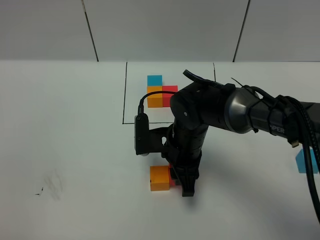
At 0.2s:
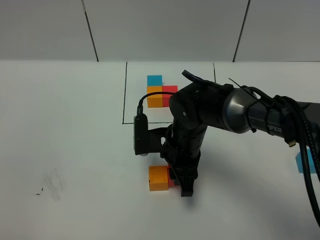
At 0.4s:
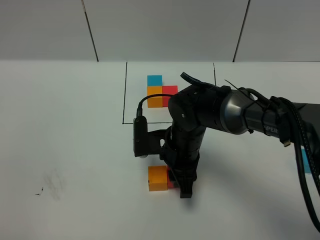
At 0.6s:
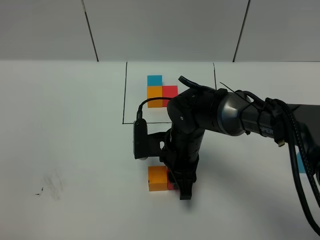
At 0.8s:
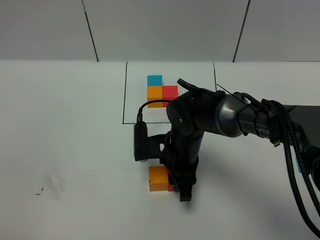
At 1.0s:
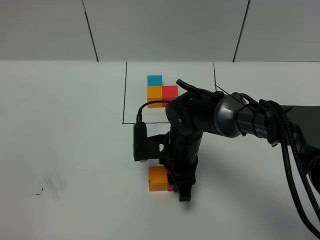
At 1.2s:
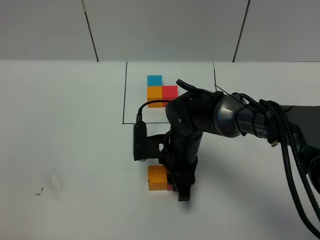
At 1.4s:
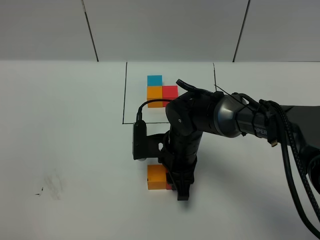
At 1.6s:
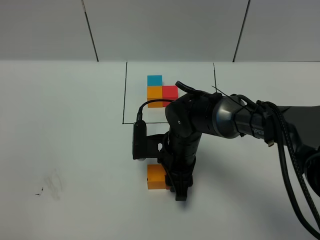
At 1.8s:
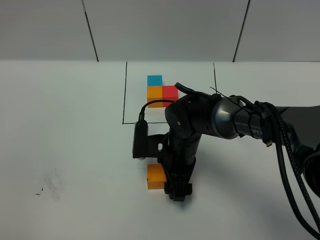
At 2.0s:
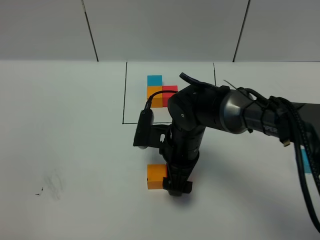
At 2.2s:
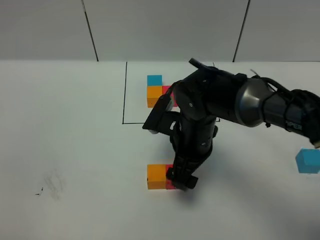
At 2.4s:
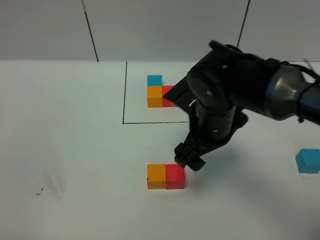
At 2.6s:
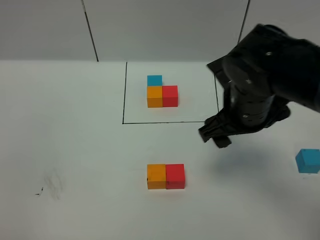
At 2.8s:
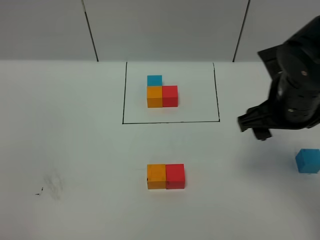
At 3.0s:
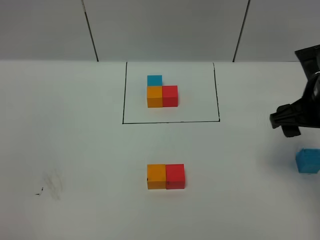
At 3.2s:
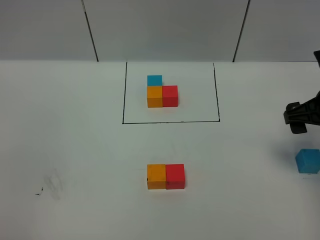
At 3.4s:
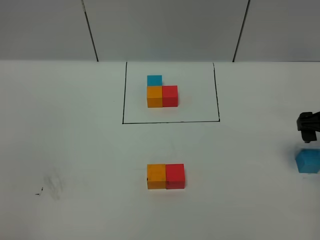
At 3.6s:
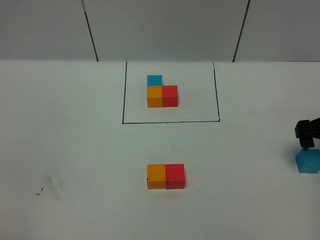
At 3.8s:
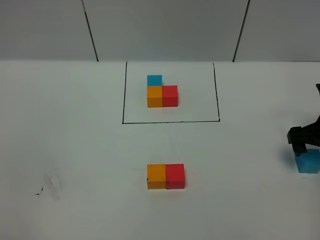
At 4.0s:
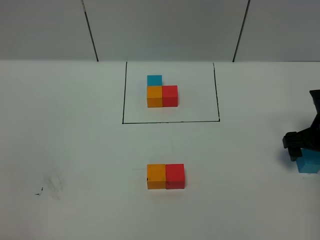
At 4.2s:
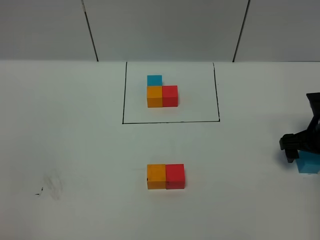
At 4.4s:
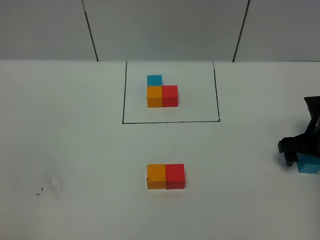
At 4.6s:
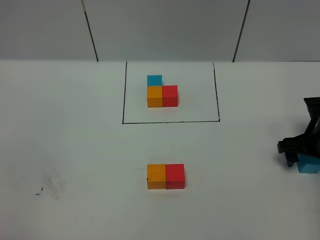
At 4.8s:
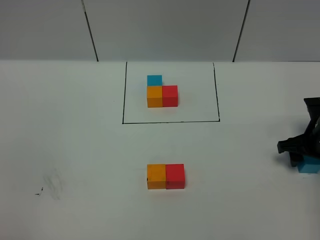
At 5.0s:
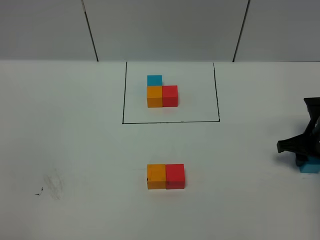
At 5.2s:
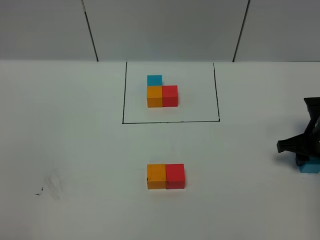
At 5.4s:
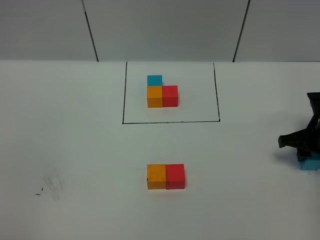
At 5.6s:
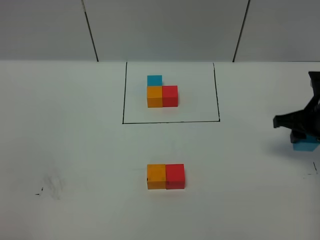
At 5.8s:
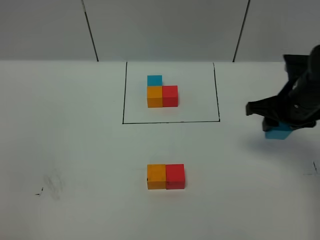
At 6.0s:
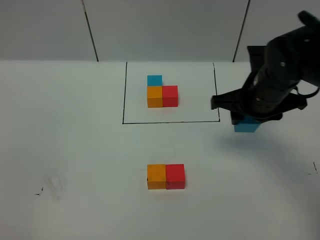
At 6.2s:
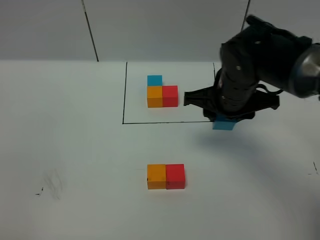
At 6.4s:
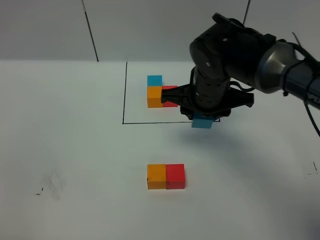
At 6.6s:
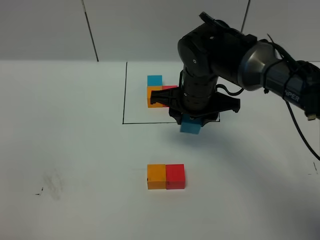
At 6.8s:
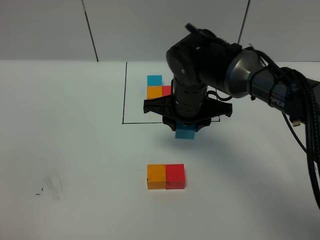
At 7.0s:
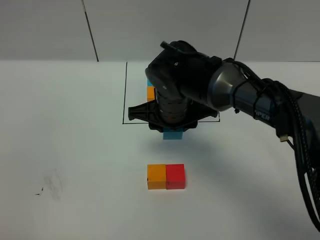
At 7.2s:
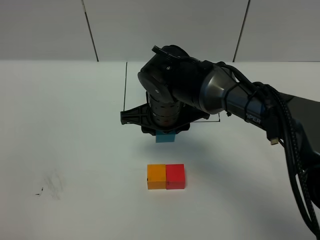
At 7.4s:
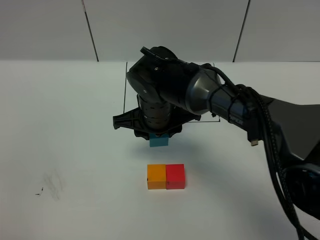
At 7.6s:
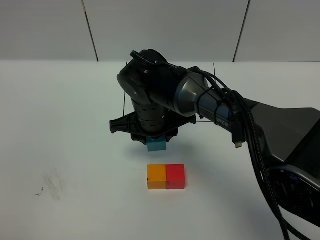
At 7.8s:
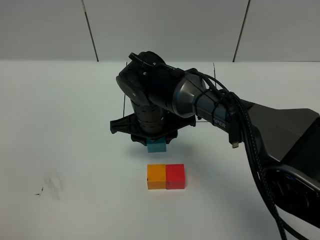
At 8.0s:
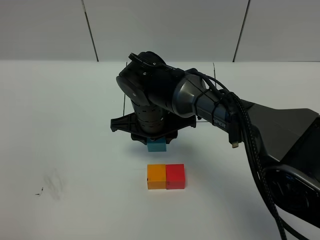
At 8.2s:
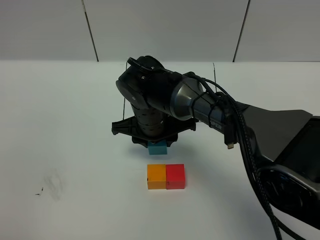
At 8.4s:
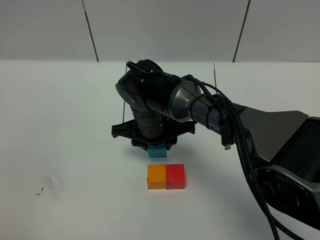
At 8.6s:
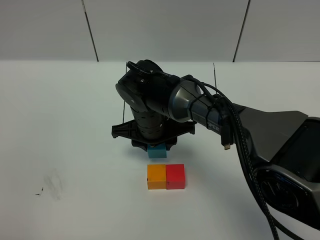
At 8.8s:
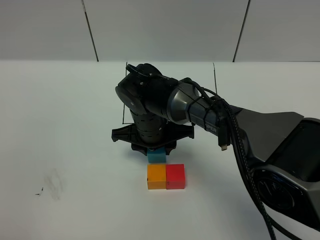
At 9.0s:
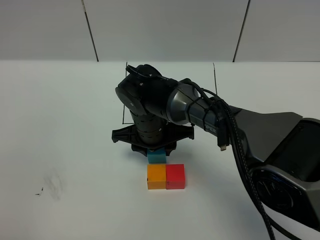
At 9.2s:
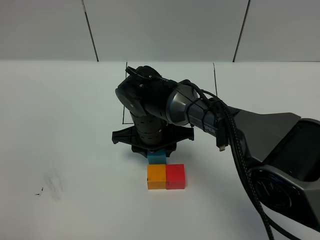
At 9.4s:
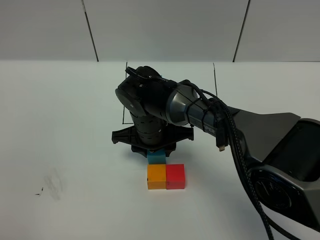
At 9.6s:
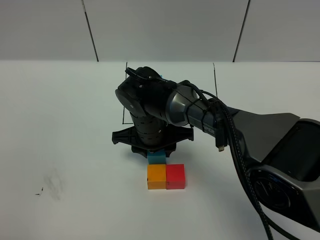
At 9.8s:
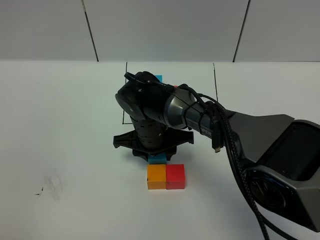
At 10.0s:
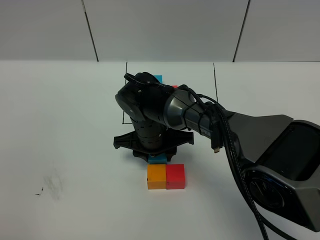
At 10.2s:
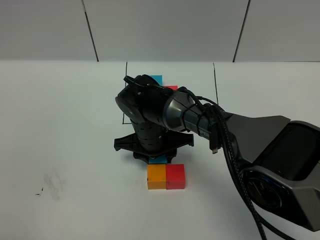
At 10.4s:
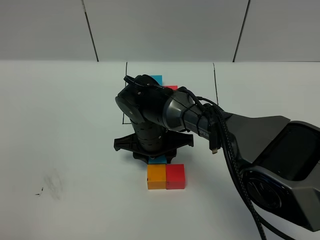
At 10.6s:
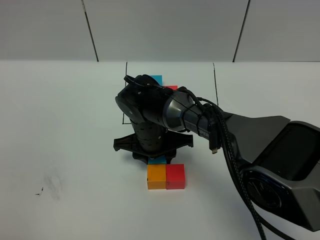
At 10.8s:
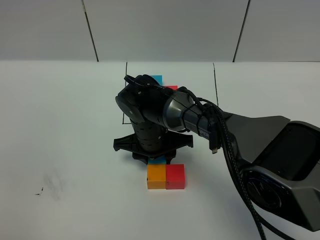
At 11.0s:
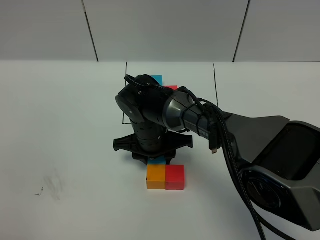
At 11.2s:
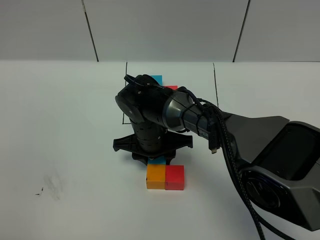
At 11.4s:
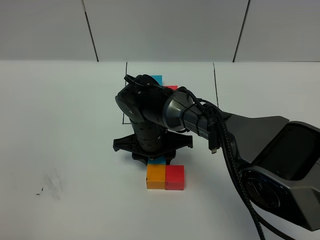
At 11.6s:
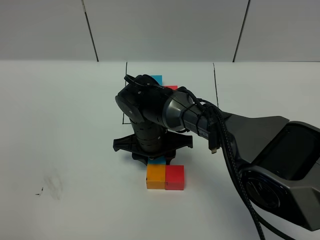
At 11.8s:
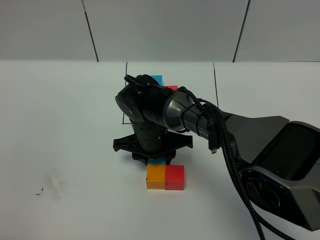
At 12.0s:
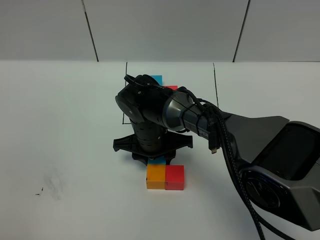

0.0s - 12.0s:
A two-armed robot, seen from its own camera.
Task of the whole recording: According to the building block template in front, assemble the scattered blocks together.
0.0s - 1.6s: The grippers move only a little.
1.6s - 3.0s: The right gripper heads to the right and upward, covering some 25 cm, and opens its fingers.
3.0s - 4.4s: The right gripper travels downward and to the right by about 15 cm.
4.4s - 6.0s: The right gripper heads to the left and upward, covering some 20 cm, and closes its fingers.
6.0s - 7.6s: The right gripper heads to the left, covering roughly 20 cm.
7.6s - 9.0s: The grippers make only small movements.
9.0s - 10.4s: The grippers stay close to where they were, moving slightly.
10.4s - 12.0s: The two grippers keep their place.

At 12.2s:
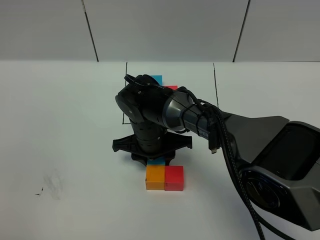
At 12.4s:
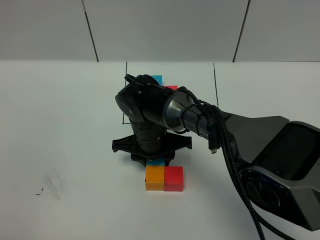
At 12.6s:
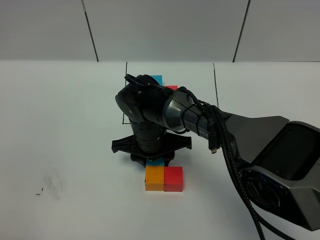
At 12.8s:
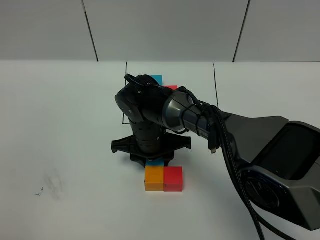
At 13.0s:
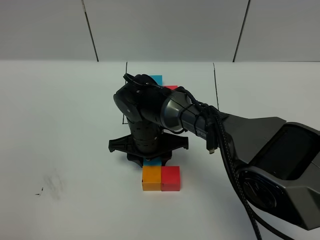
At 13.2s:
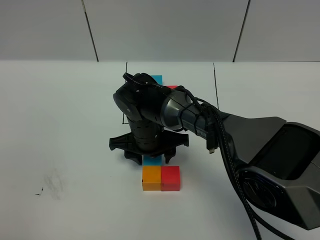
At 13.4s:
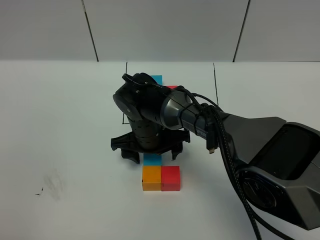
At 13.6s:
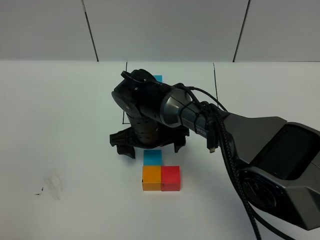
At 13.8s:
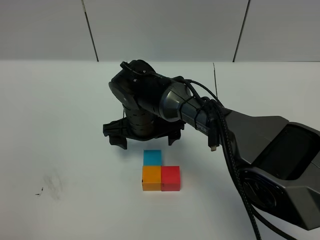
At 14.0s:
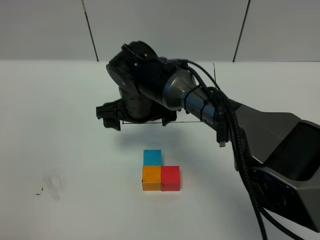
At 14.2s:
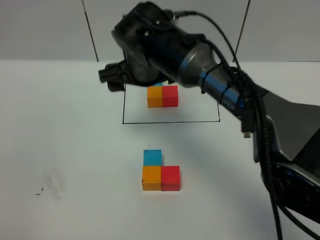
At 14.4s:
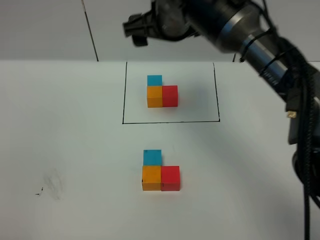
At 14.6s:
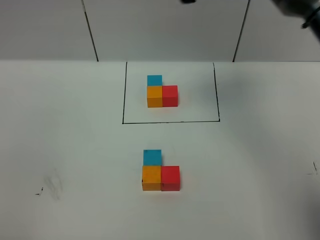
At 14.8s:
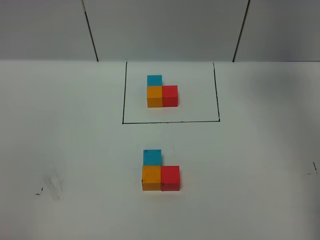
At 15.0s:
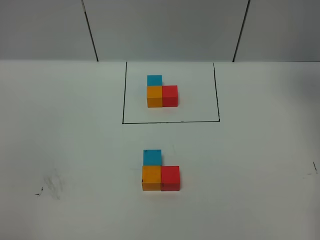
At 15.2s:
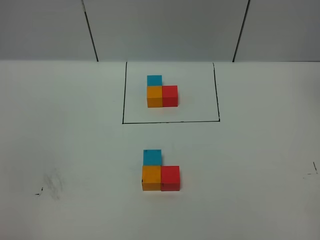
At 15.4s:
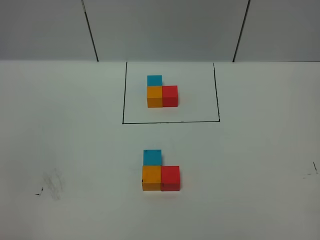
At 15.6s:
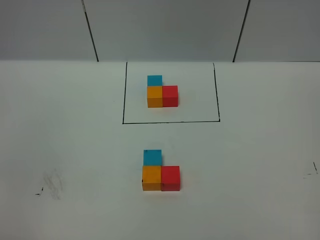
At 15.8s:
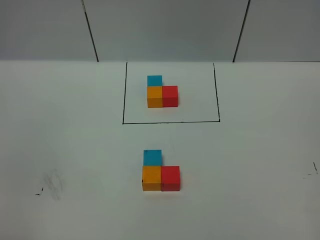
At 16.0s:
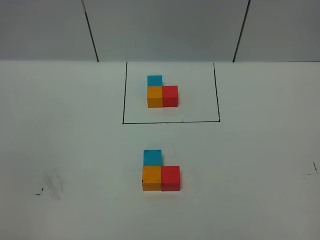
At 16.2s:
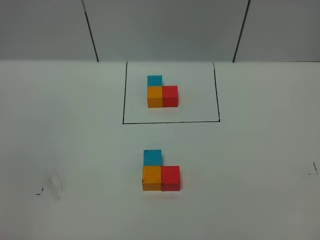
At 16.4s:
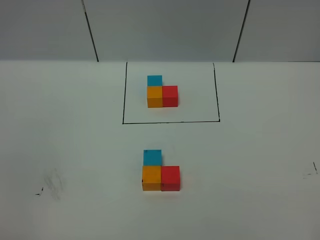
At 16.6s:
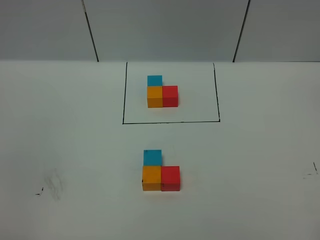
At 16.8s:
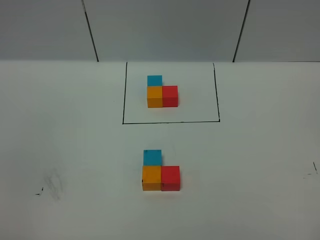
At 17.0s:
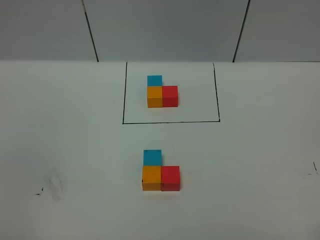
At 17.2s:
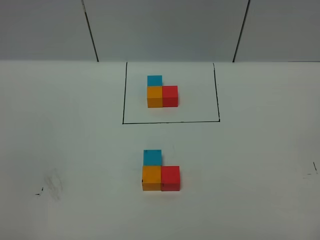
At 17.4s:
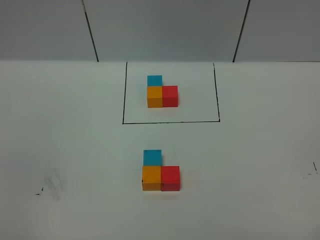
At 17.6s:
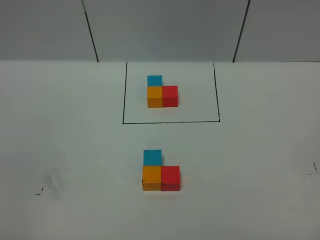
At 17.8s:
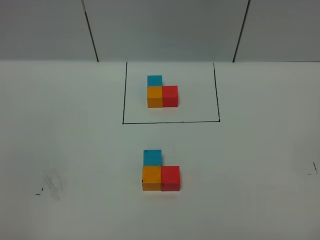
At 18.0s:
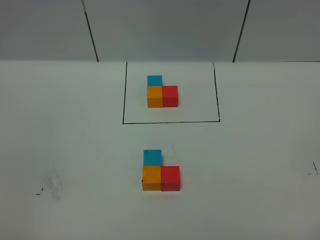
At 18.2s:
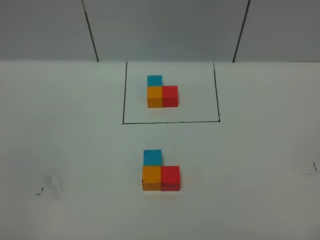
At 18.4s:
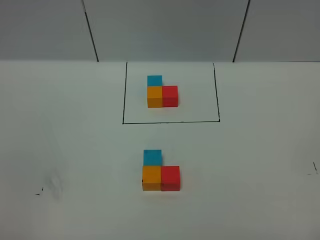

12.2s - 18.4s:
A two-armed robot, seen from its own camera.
Task of the whole recording: According to the building block template in front, assemble the scattered blocks together.
12.2s - 13.8s: The right gripper opens.
13.8s - 15.4s: The right gripper travels to the right and upward by about 60 cm.

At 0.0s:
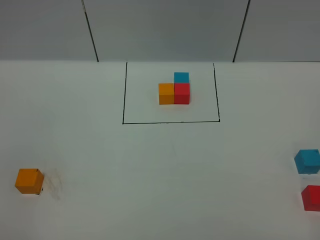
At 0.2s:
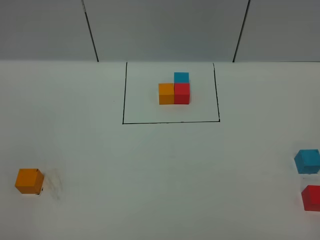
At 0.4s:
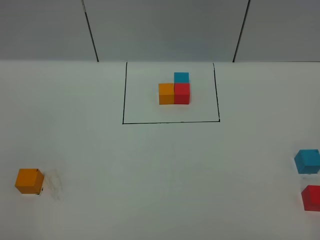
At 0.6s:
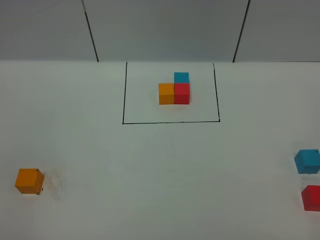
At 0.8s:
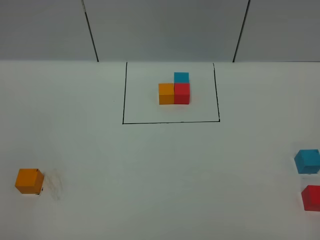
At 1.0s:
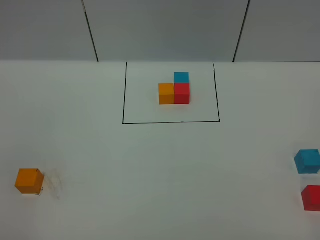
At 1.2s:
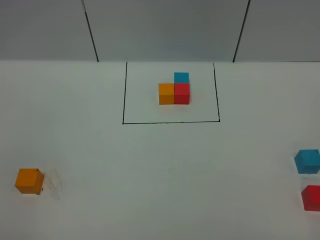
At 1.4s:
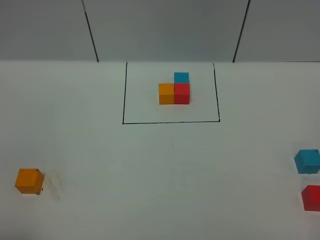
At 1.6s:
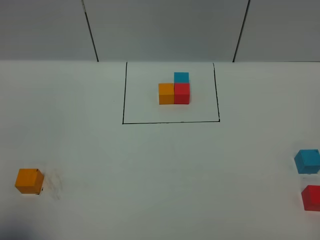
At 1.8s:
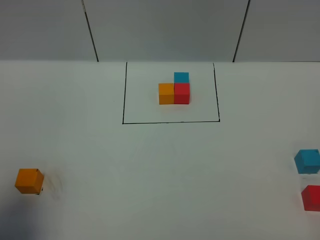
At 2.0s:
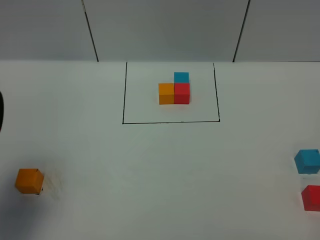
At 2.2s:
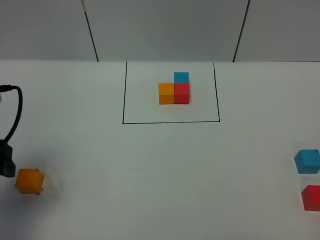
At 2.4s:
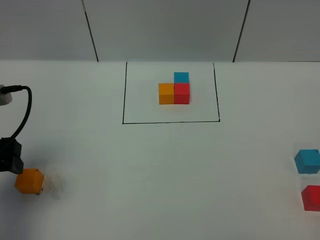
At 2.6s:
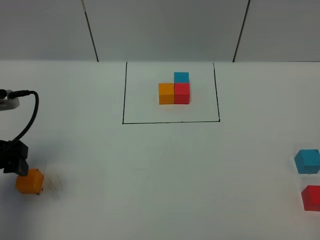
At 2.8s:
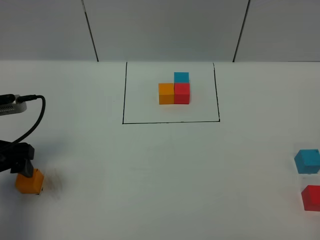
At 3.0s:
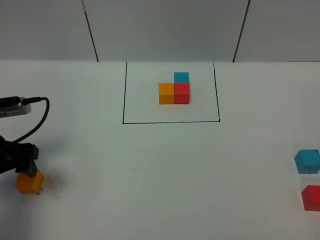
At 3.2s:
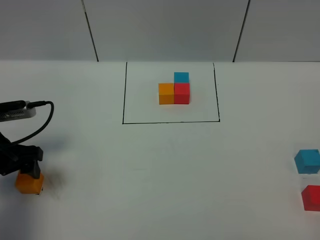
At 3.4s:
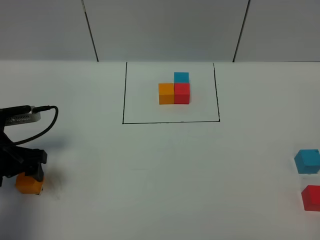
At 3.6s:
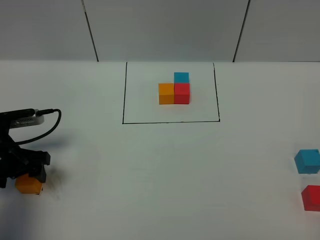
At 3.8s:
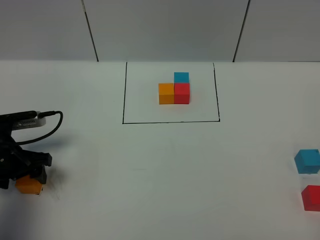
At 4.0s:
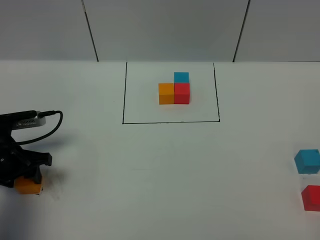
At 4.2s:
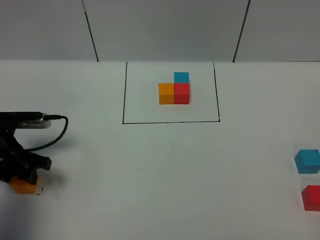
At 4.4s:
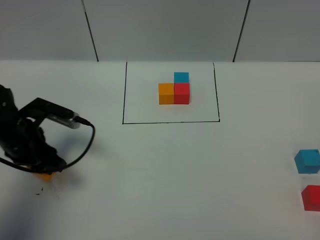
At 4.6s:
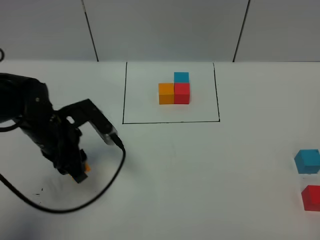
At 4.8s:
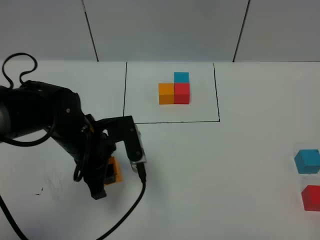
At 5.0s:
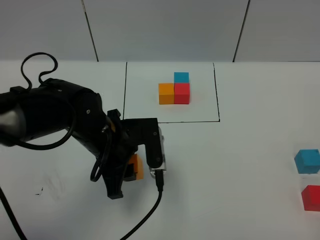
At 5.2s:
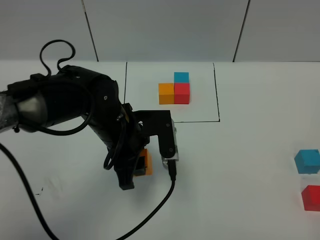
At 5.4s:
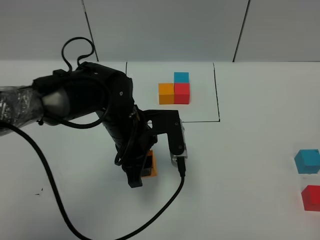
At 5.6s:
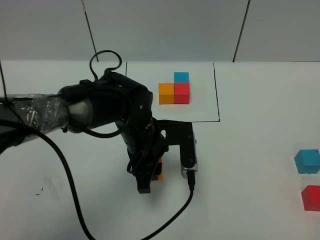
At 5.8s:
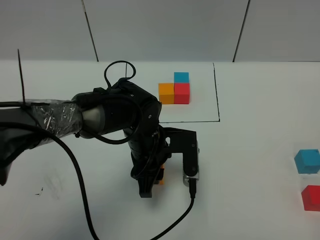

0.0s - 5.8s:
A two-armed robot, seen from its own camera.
Task of the whole recording: According to the building block template in front, assemble the scattered blocks together.
1.4s - 2.8s: The left gripper heads forward, covering roughly 25 cm.
2.8s - 4.4s: The left gripper moves to the right and forward, roughly 10 cm, and closes its fingers.
4.4s - 5.8s: The left gripper travels to the right by roughly 20 cm.
